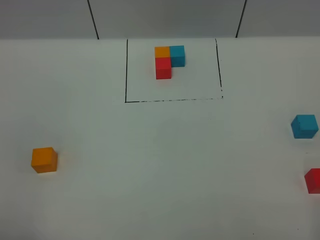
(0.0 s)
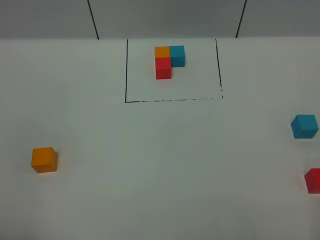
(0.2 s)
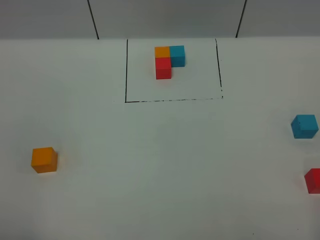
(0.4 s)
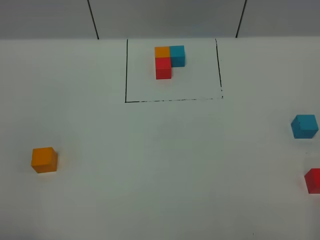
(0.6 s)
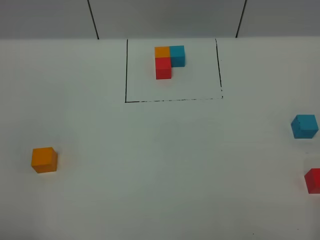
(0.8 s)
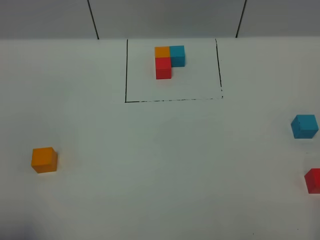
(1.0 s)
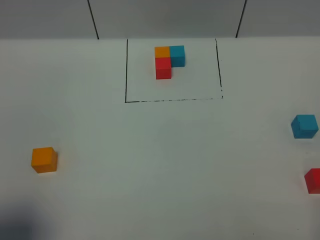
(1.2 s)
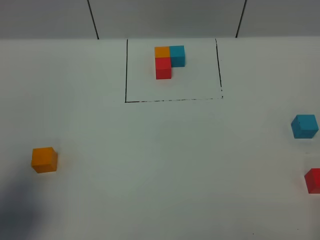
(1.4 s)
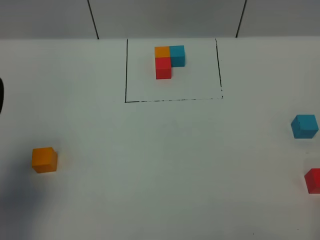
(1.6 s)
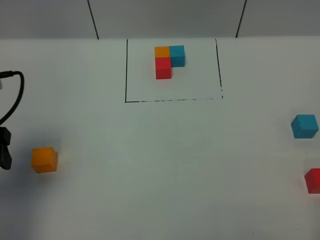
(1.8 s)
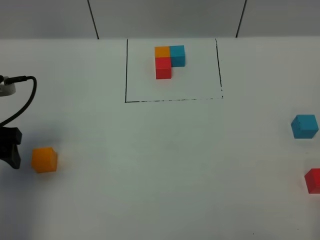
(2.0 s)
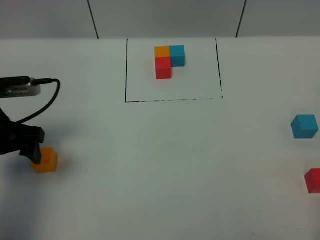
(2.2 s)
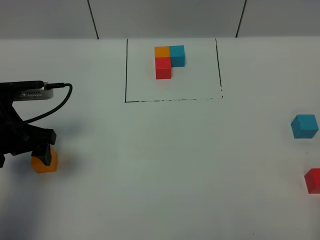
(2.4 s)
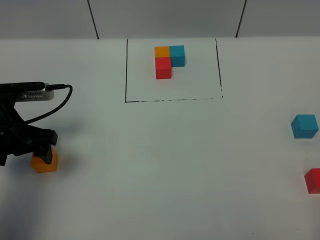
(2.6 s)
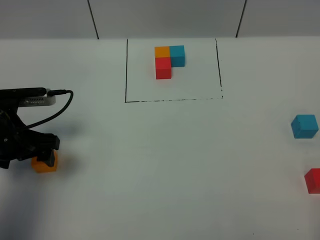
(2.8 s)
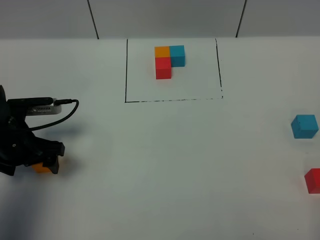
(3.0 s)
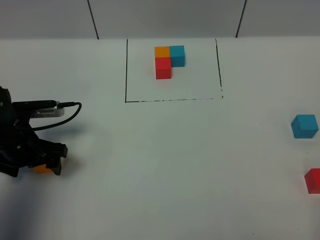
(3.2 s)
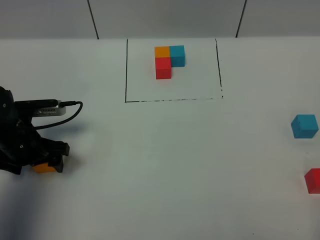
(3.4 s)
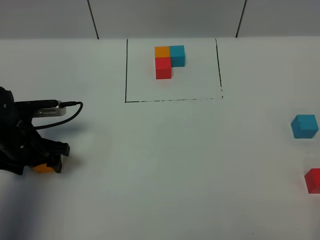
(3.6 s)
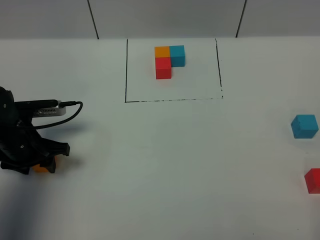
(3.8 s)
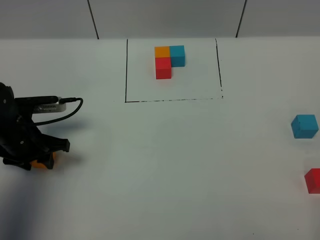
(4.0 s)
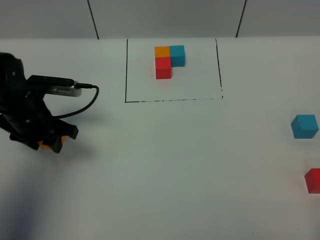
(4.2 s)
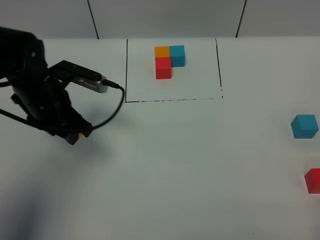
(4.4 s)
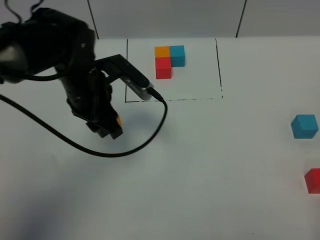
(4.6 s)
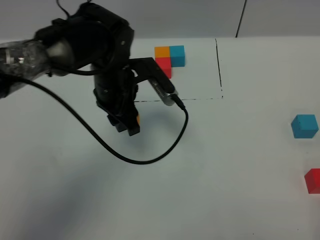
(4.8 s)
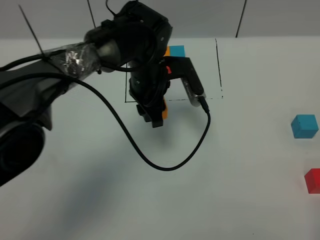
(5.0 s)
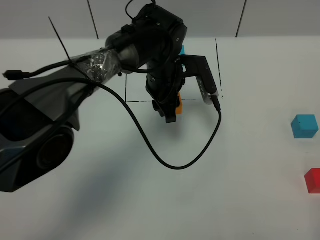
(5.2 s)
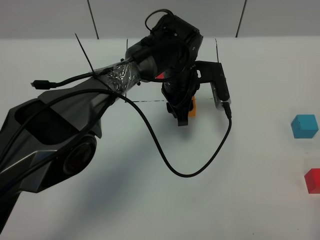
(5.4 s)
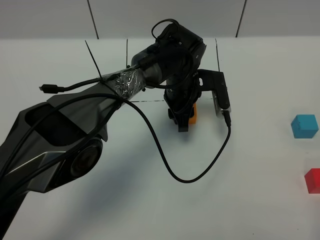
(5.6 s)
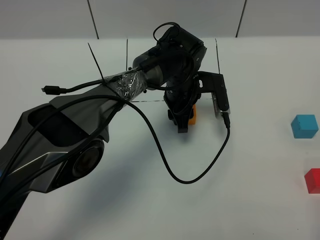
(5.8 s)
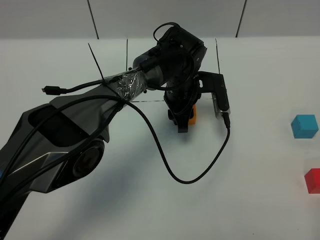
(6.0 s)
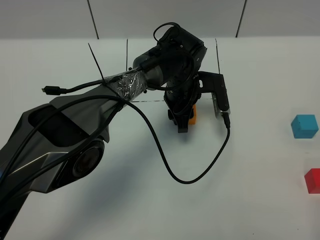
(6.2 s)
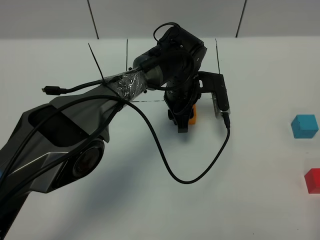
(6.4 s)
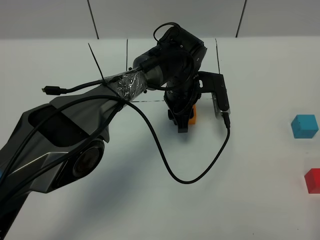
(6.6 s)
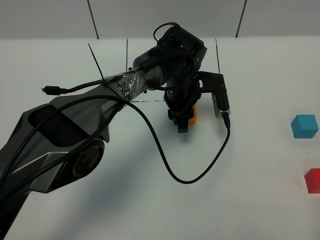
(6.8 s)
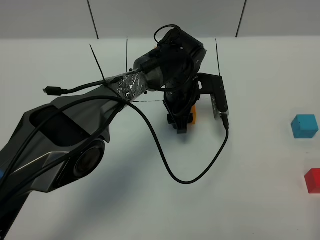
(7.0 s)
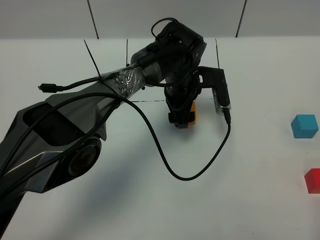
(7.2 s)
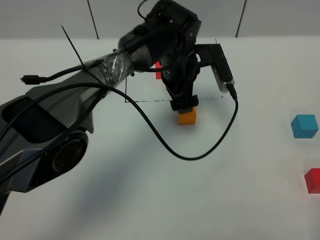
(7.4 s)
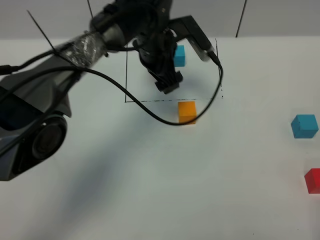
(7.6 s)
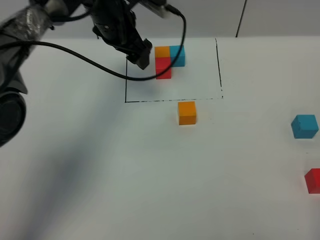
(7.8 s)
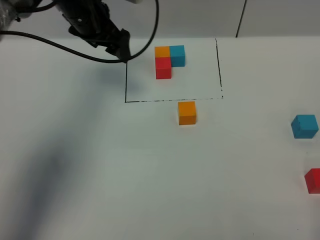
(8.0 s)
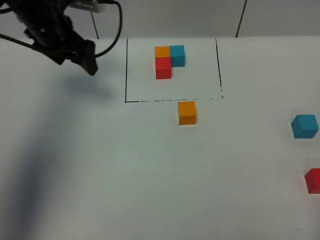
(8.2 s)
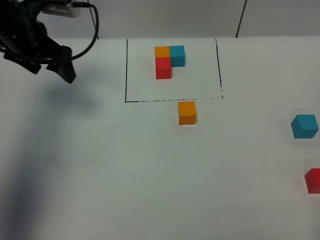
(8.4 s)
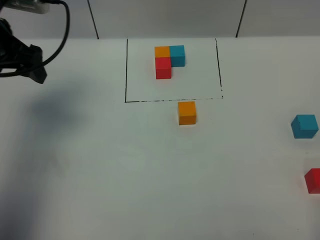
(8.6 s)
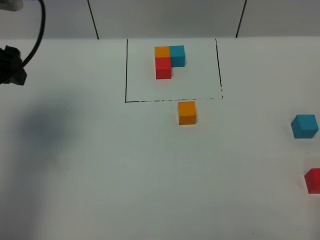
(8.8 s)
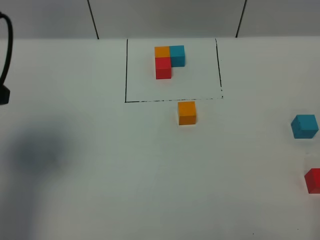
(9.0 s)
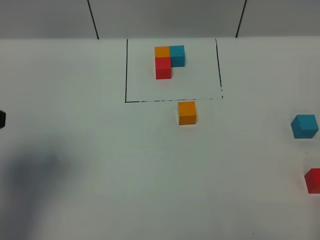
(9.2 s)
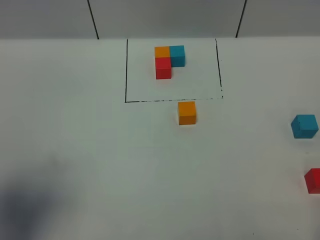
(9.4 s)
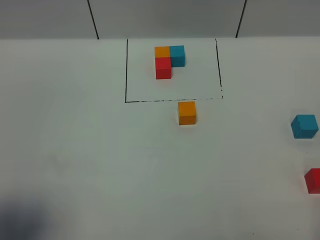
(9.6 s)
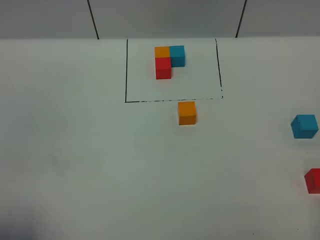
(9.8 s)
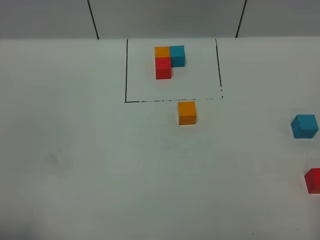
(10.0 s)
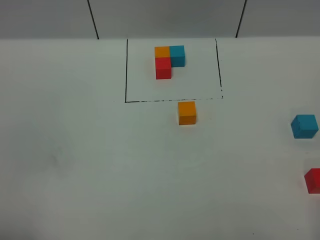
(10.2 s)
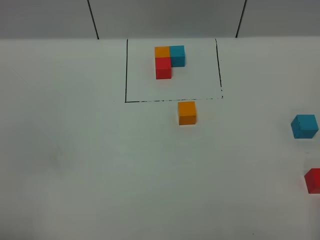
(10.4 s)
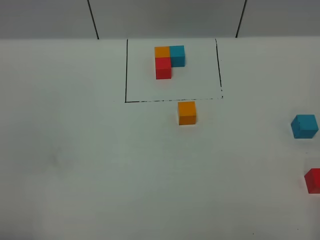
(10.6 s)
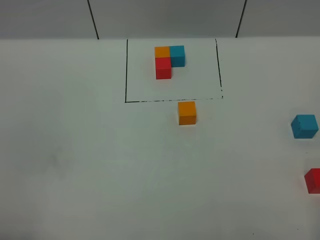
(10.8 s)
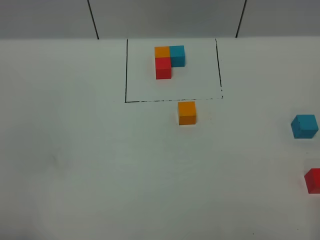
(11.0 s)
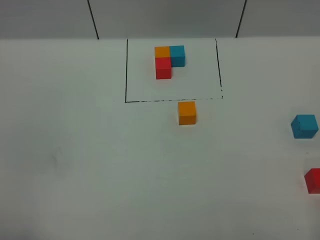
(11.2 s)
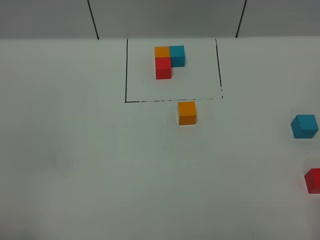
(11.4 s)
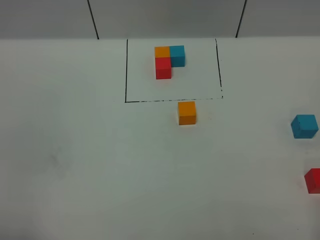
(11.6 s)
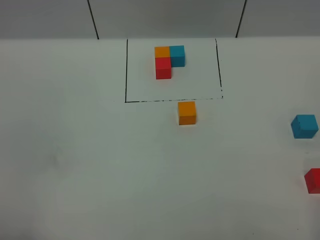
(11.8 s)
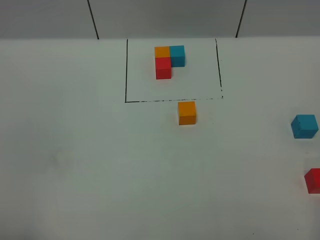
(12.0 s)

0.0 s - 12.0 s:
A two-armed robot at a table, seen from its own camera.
Task of the whole recording: According to the building block template in front, assemble the scattered blocks together.
Step, 0.0 s - 7.0 s: Put the orange build block in the center of the table.
0.0 s - 1.6 s: The left gripper heads forward, covering approximately 20 cm.
1.6 s - 3.0 s: The left gripper is displaced downward and forward by about 20 cm.
3.0 s - 4.4 s: The left gripper travels to the right and upward by some 10 cm, and closes its fingers.
4.4 s - 6.0 s: The left gripper is displaced to the right by roughly 20 cm.
6.0 s - 7.6 s: The left gripper heads upward and to the left, covering approximately 10 cm, and opens up.
7.6 s - 9.0 s: The left gripper travels to the left, backward and upward by about 35 cm.
9.0 s - 10.4 s: The left gripper moves backward, roughly 20 cm.

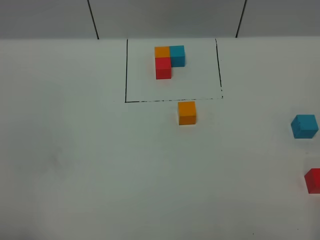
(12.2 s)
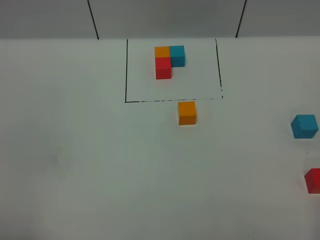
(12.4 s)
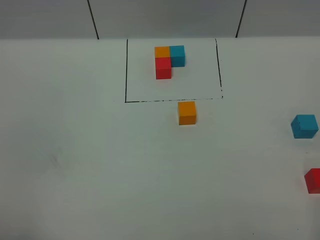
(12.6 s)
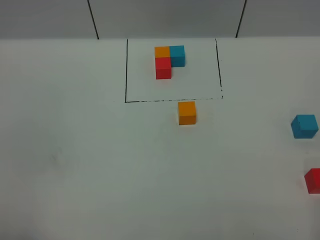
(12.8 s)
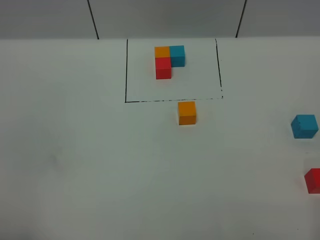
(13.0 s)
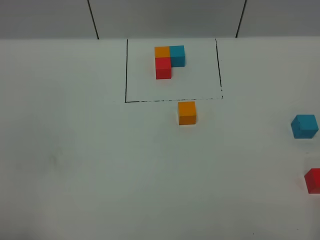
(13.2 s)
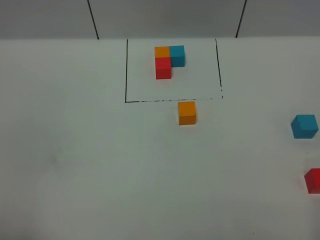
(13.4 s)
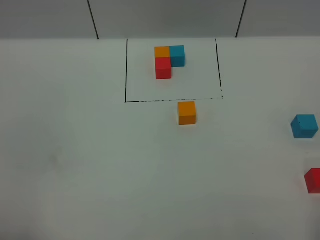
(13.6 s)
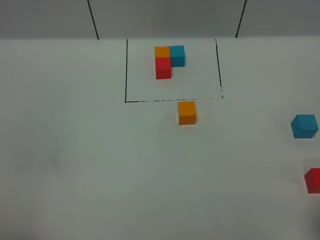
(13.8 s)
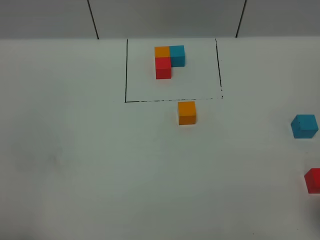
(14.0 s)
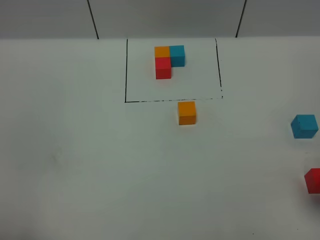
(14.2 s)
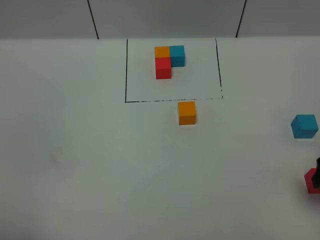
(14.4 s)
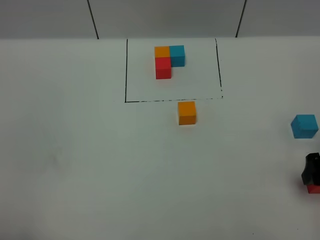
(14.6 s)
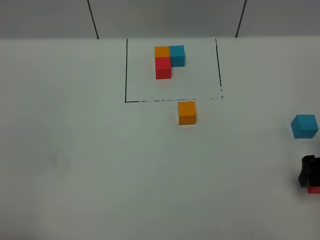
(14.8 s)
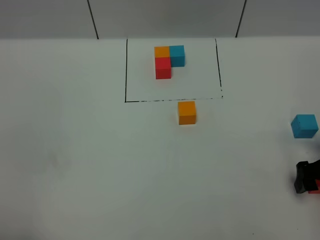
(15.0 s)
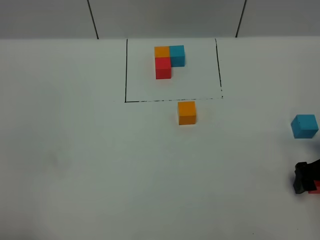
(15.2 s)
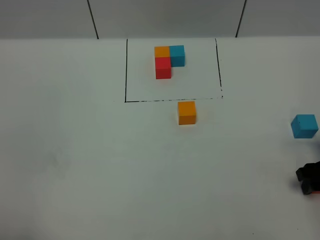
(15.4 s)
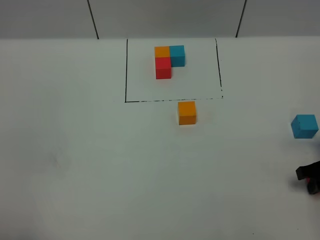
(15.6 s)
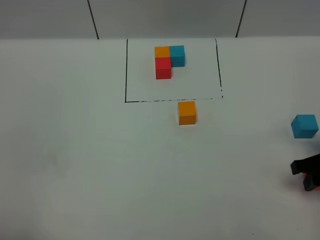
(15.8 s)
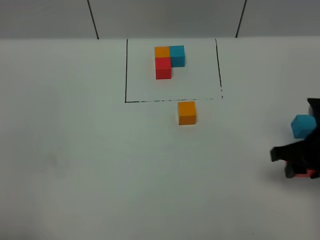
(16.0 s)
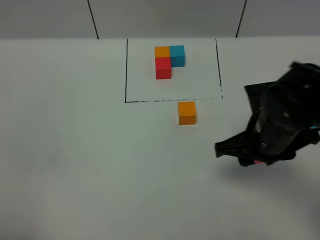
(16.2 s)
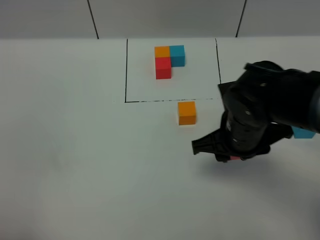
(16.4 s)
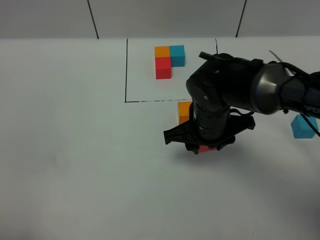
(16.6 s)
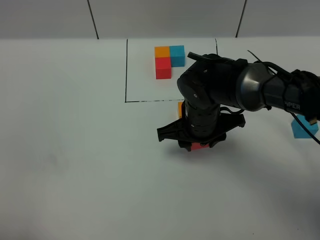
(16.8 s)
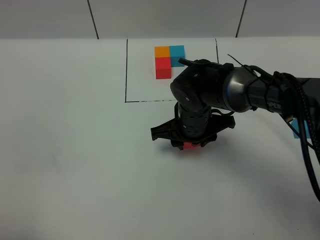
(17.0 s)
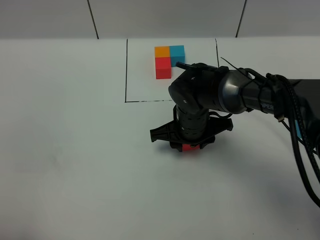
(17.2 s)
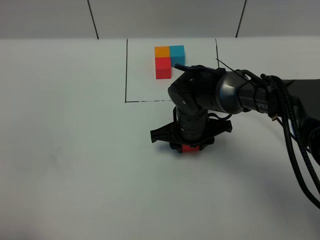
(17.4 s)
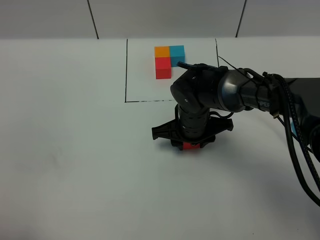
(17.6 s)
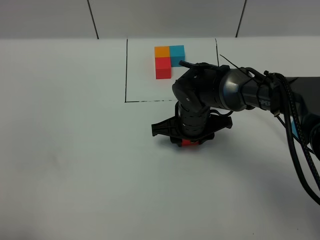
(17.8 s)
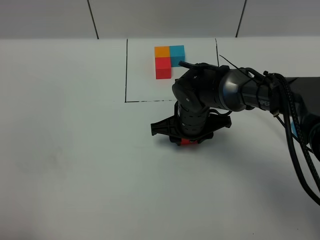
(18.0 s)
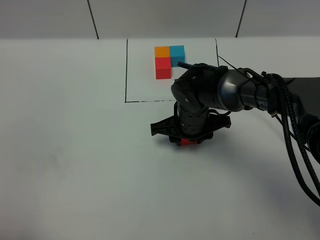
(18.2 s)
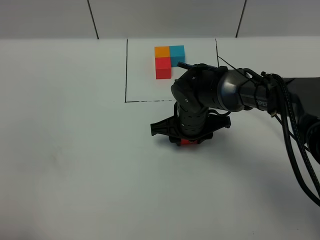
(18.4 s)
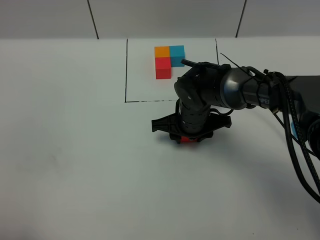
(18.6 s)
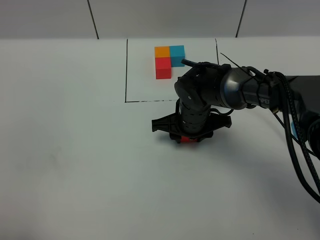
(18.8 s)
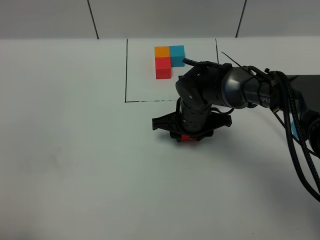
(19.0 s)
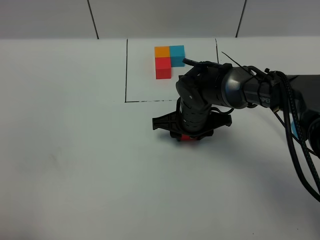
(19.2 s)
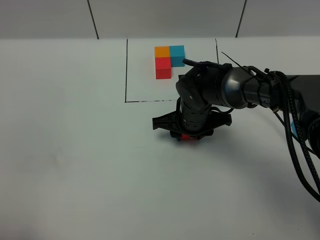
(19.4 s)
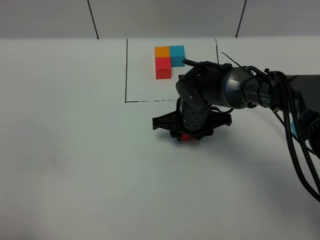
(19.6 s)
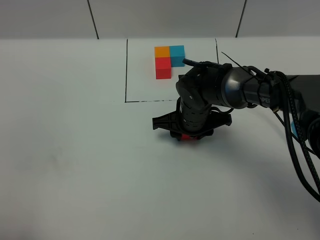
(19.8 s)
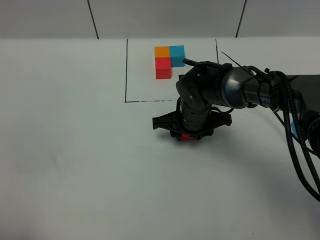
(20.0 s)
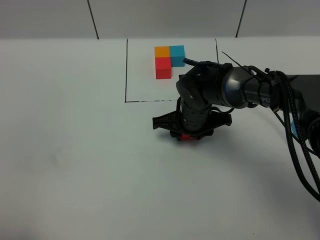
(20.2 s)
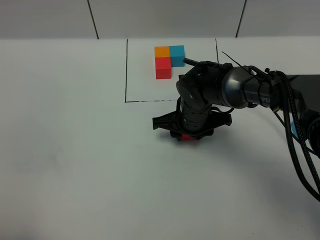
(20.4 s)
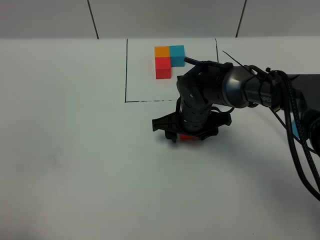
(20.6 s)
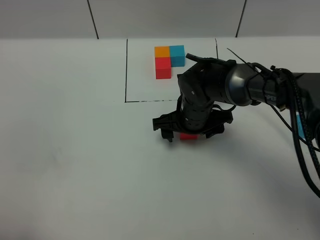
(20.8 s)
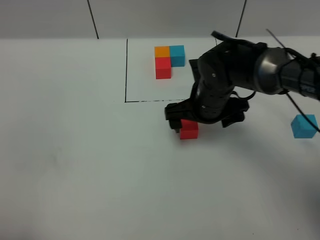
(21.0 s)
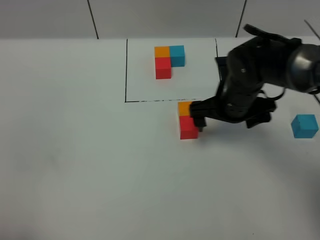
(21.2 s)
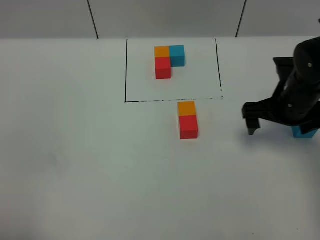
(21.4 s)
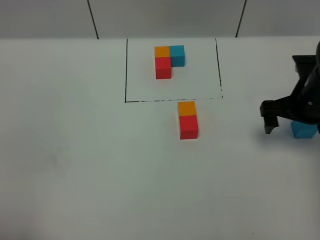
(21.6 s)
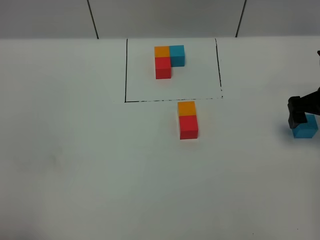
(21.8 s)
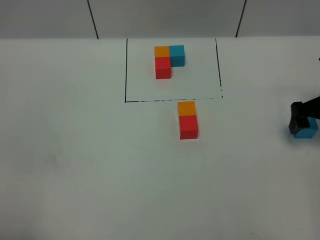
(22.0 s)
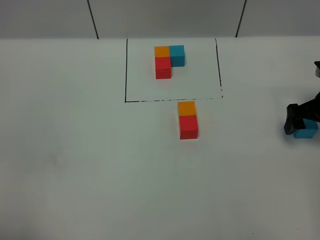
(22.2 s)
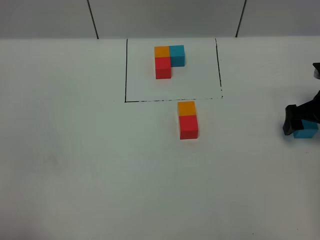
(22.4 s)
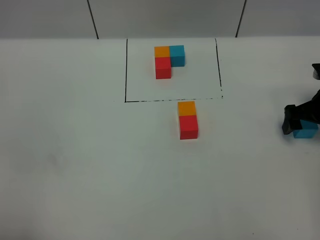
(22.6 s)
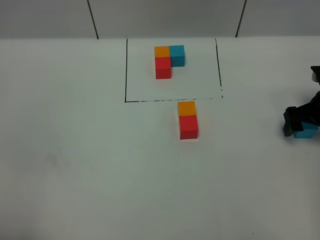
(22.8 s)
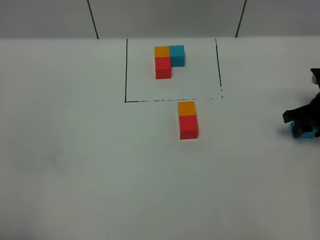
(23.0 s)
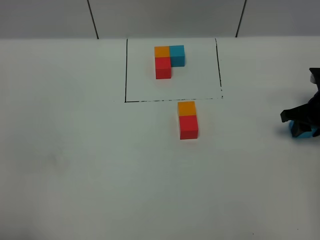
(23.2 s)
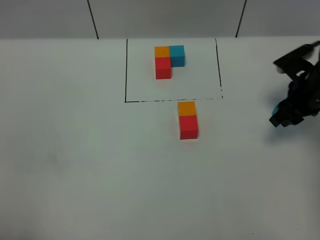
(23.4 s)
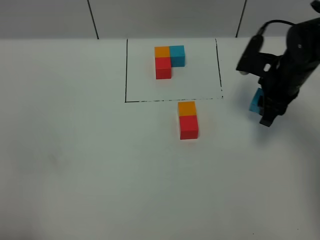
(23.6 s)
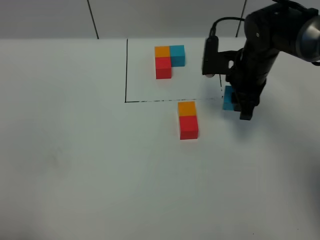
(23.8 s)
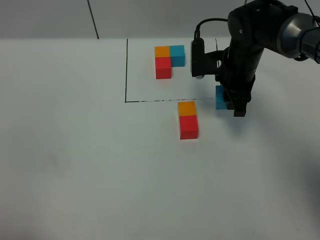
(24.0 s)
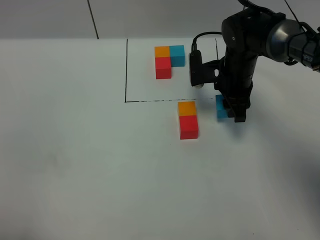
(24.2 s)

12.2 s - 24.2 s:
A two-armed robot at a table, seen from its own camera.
Task of the whole recording: According to the building block template in front, assemble the scattered blocks together.
Step, 12.2 s - 20.4 s: Put the red build block on the behind of the orange build block.
13.8 s - 15.2 s: The right gripper travels forward and downward by roughly 20 cm.
15.2 s - 16.6 s: The right gripper goes some 25 cm to the left, and closes up.
16.6 s - 18.2 s: The right gripper moves downward, approximately 5 cm.
18.2 s - 19.8 s: Both grippers stay about where they are.
19.8 s - 21.2 s: The right gripper travels to the right and upward by about 10 cm, and opens up.
21.2 s - 22.6 s: The right gripper goes about 20 cm to the right.
22.6 s - 24.2 s: The right gripper moves to the left, approximately 20 cm, and closes up.
